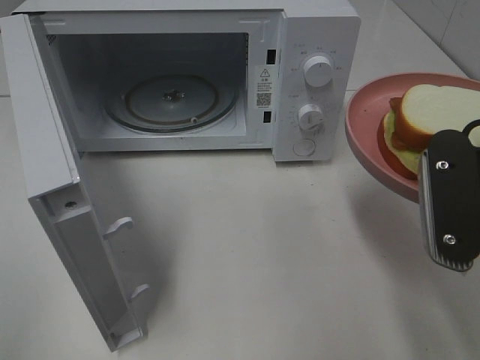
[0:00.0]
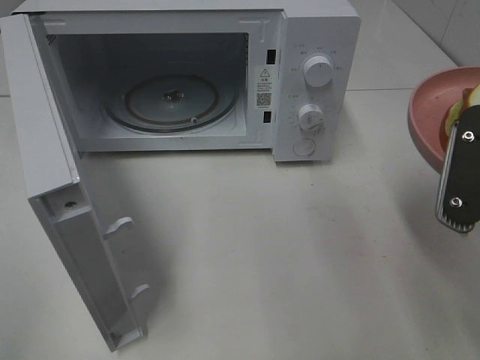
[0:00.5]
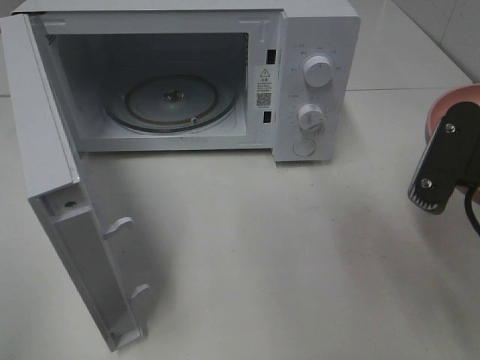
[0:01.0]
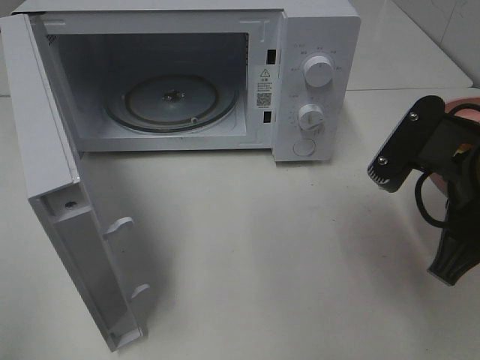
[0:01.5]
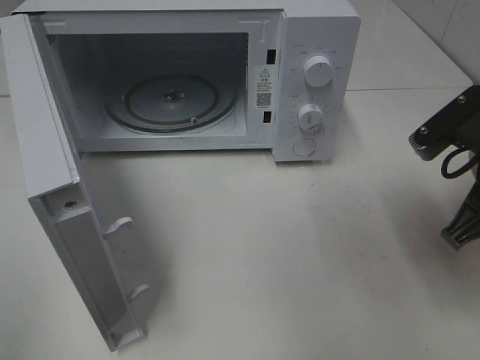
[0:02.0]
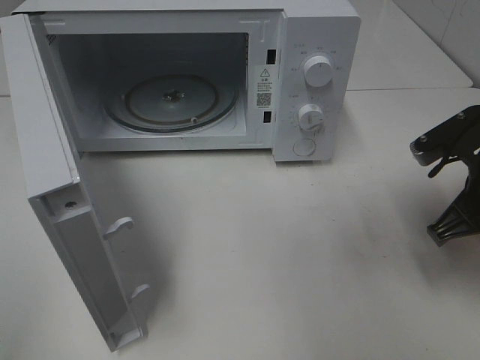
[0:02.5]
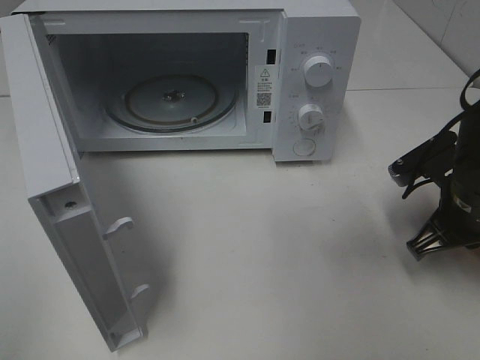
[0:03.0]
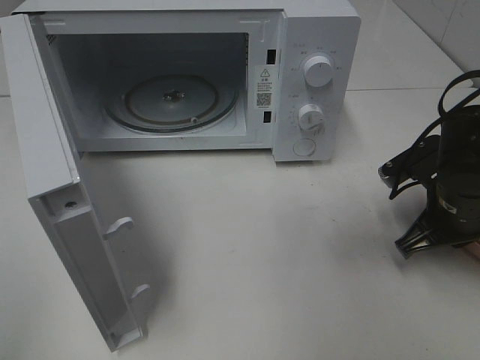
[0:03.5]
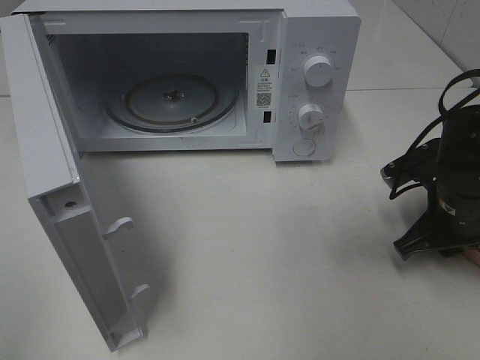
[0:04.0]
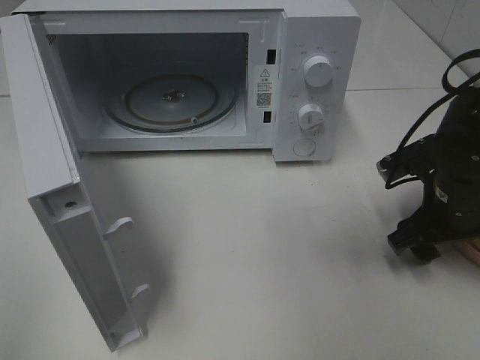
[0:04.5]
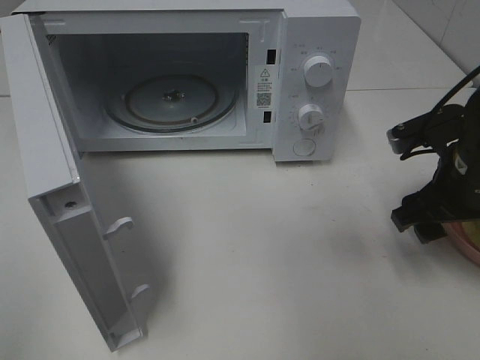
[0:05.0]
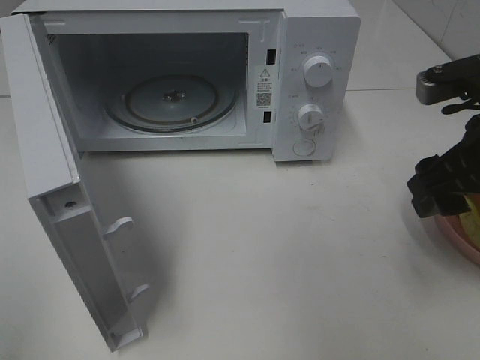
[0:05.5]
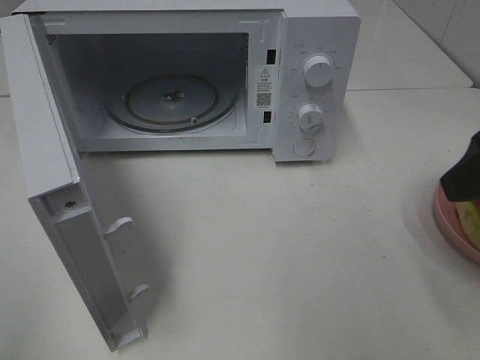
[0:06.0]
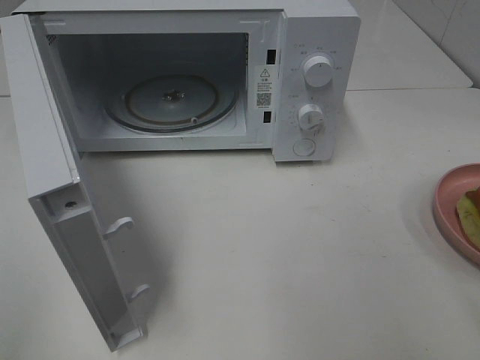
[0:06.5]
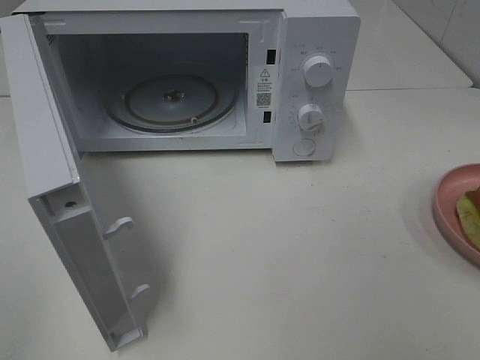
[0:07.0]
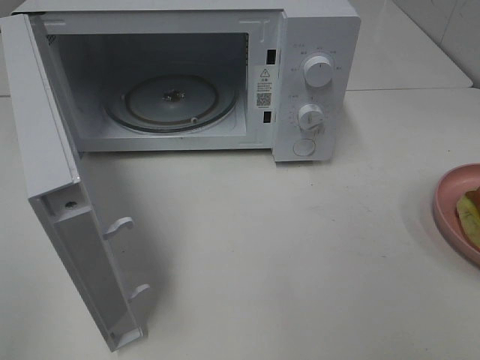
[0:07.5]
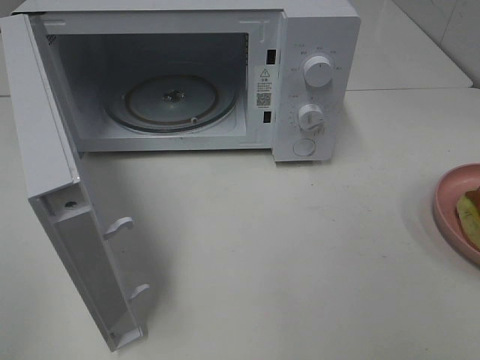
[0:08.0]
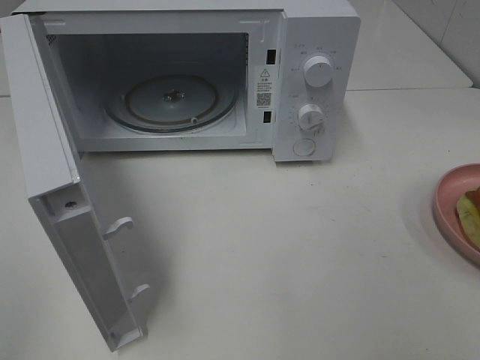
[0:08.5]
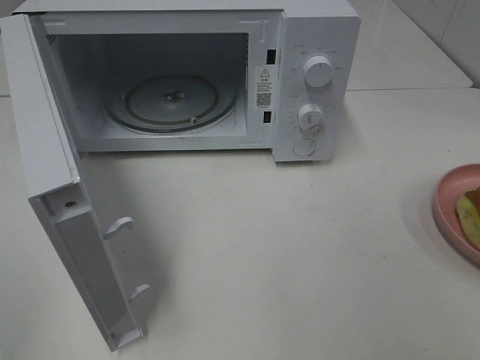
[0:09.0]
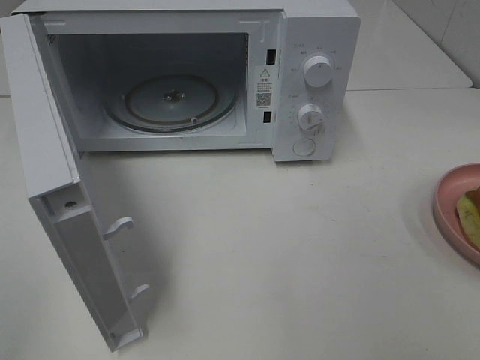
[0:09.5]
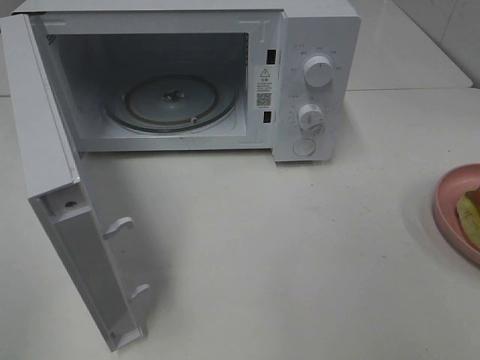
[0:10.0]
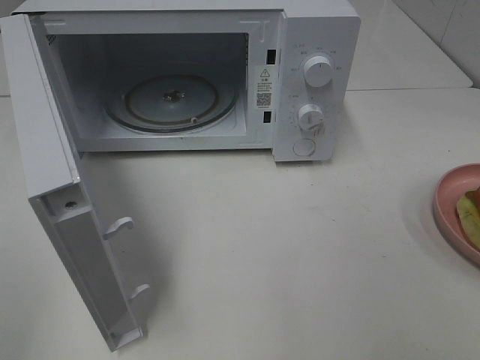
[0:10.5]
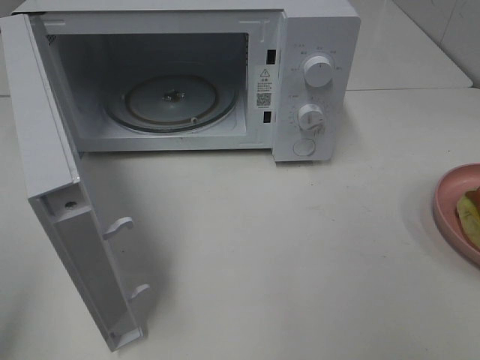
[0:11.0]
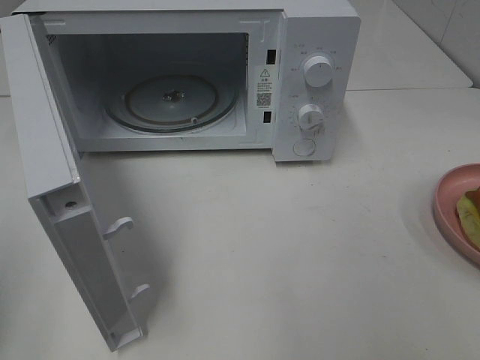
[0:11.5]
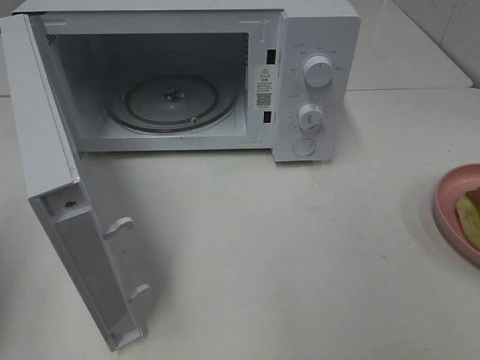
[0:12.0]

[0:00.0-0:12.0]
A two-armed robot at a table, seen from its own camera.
Task of the whole recording: Heat Sandwich.
Step, 0:00.0 to 0:05.0: Right hand: place the plate on the table.
0:00.0 to 0:02.0: The right gripper moves forward, about 5 cm.
0:02.0 to 0:04.0: The right gripper is displaced downward by roughly 10 cm, and opens.
0:04.0 to 0:06.0: The right gripper moves upward and backward, about 20 cm, and opens up.
0:06.0 to 0:08.0: The right gripper shifts approximately 15 cm backward.
0:08.0 to 0:10.0: The two grippers keep their place.

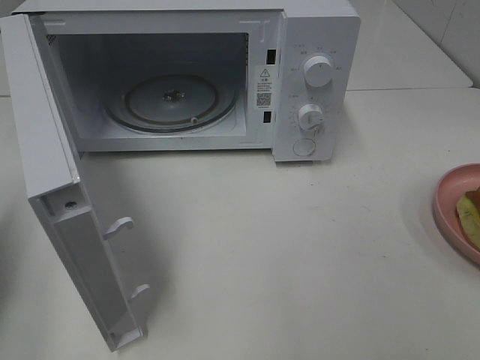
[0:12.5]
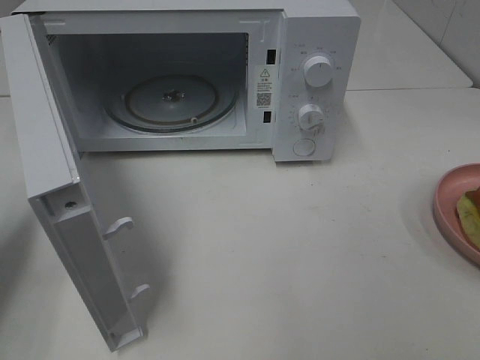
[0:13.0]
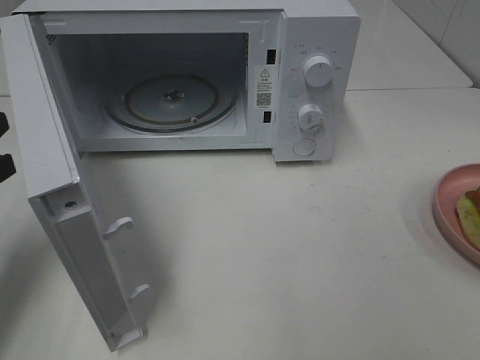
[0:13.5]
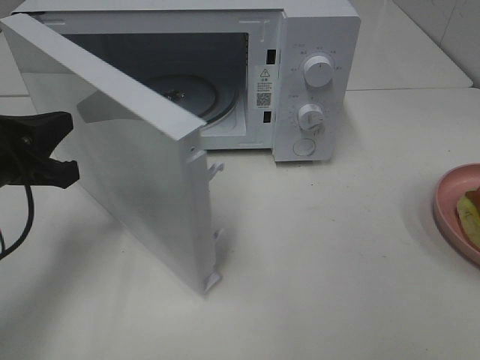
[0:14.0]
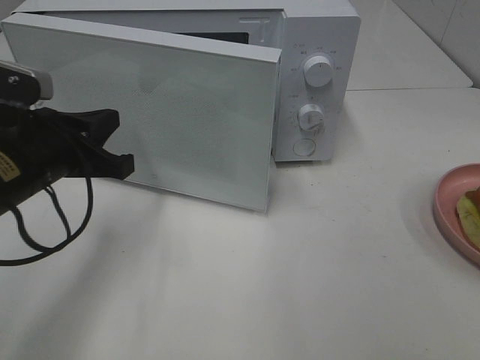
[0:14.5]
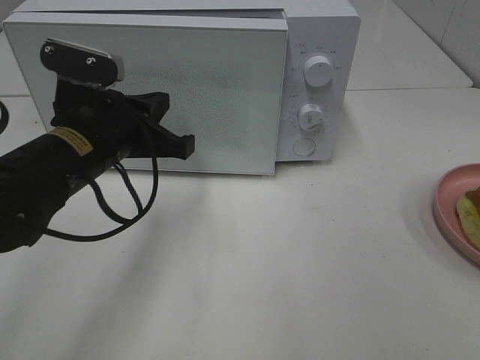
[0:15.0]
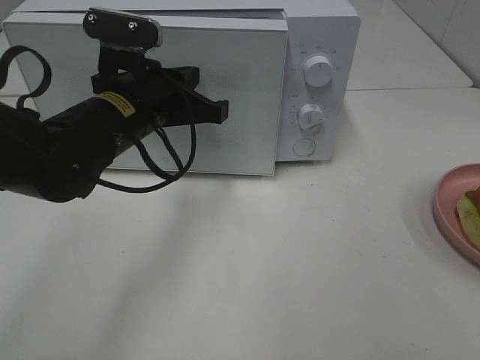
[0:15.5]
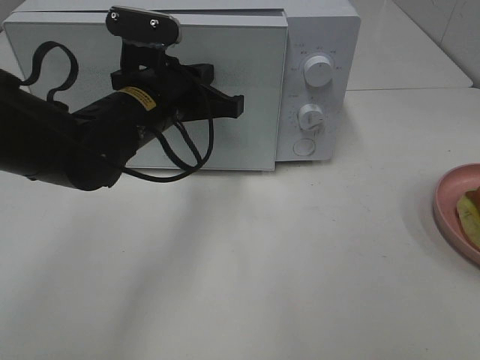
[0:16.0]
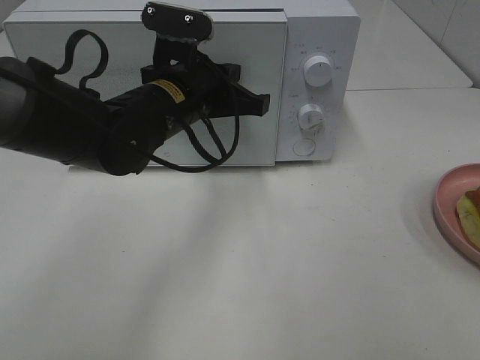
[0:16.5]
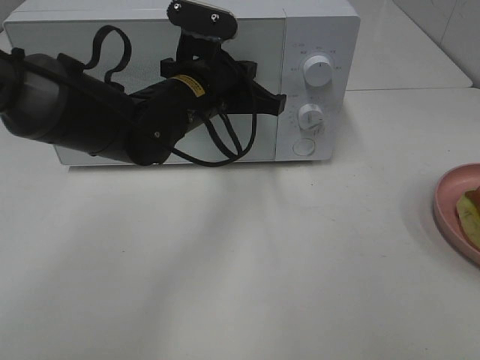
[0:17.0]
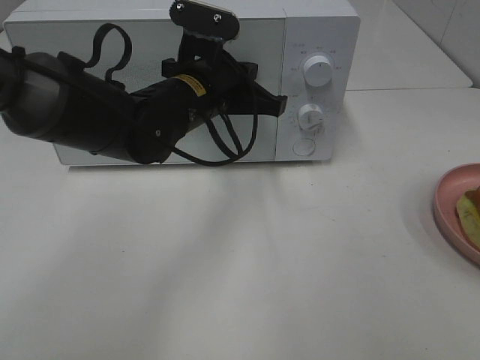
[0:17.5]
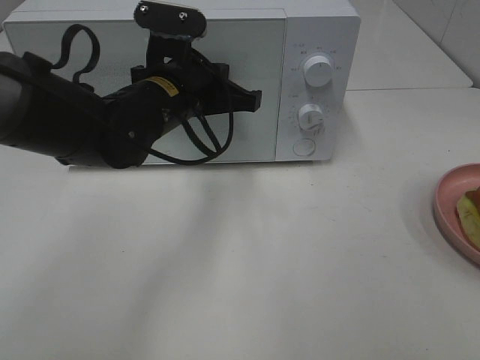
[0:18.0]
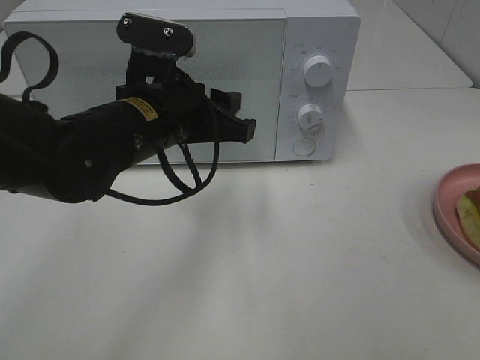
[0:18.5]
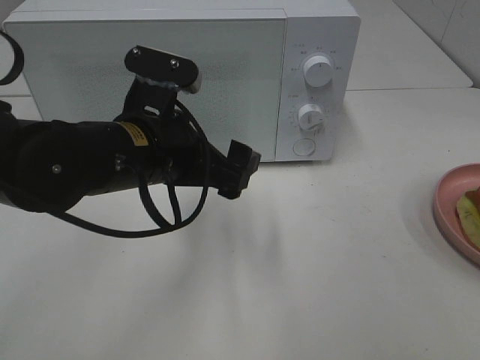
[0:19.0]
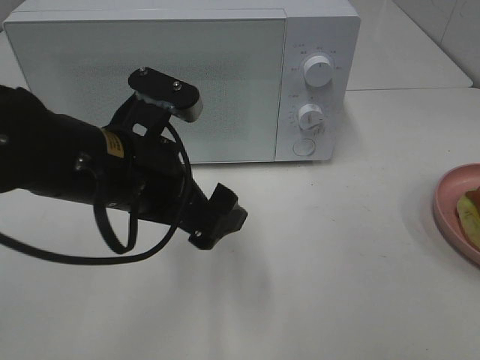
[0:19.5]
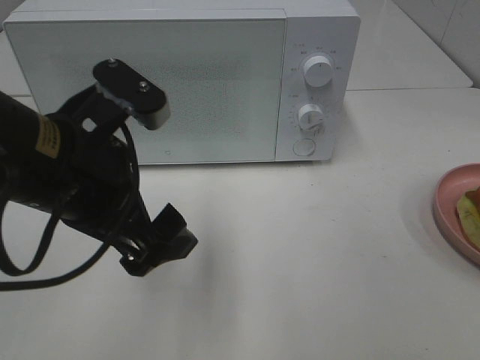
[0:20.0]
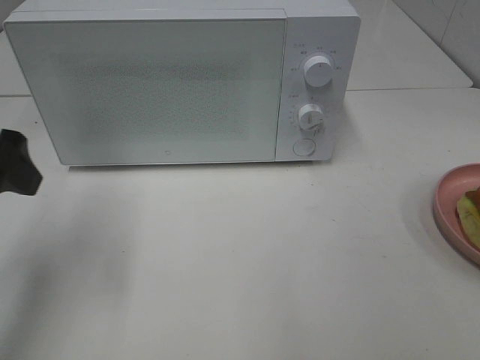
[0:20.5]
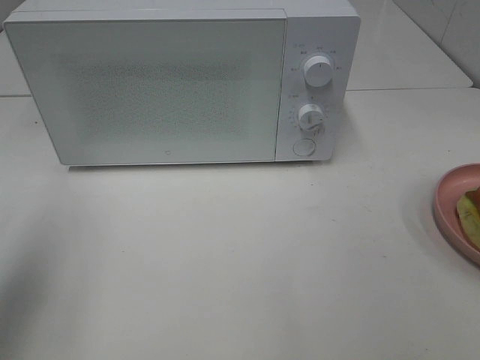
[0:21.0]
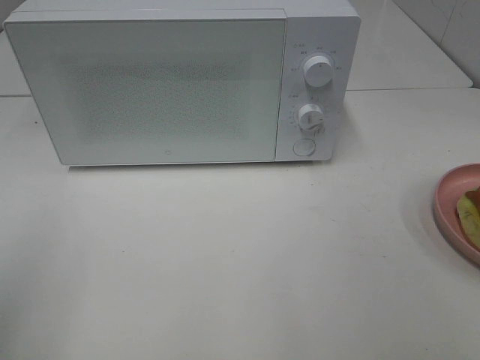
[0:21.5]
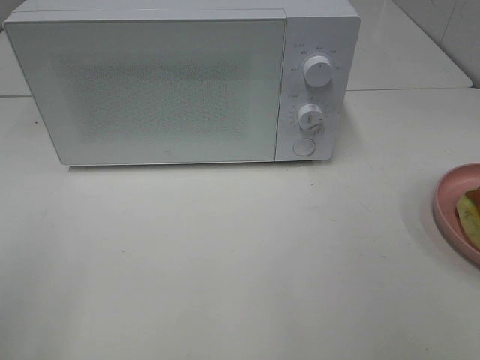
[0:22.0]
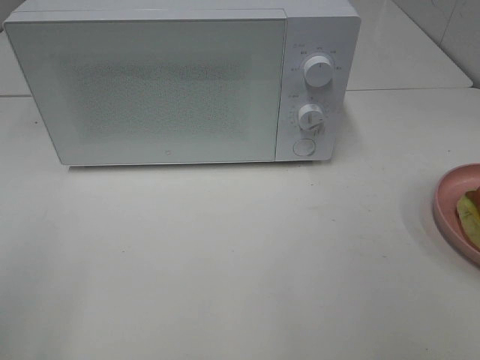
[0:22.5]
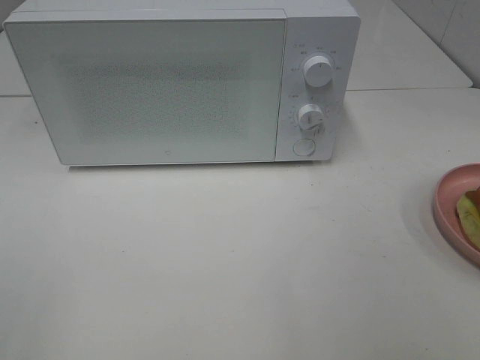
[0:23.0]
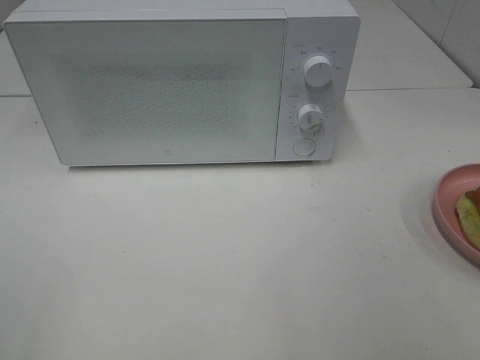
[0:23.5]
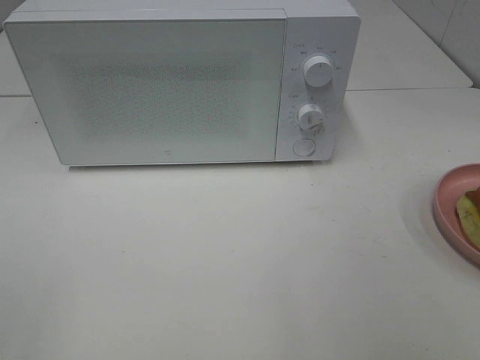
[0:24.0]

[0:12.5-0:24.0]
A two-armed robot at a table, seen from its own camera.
Task of the whole recording: Heat Sandwich.
Step, 0:12.5 to 0:18.0: Left hand: close the microwave door.
0:12.5 to 0:14.5: The left gripper travels to the right, forward and downward by about 20 cm.
0:14.5 to 0:16.5: The left gripper shifts about 15 cm to the right and forward.
0:16.5 to 0:18.5: The left gripper travels backward by roughly 5 cm, and opens up.
0:18.5 to 0:20.0: The left gripper travels backward and to the left by roughly 10 cm, and opens.
0:20.0 to 0:22.0: The left gripper heads to the left and backward, covering about 25 cm.

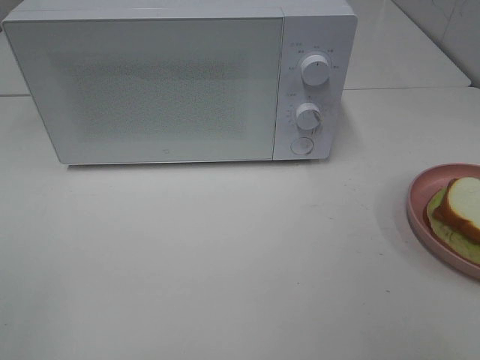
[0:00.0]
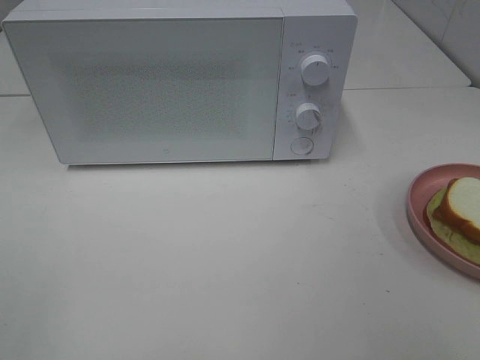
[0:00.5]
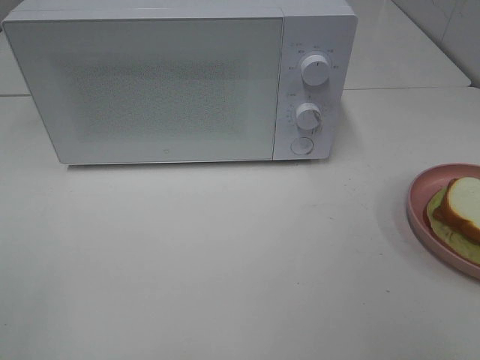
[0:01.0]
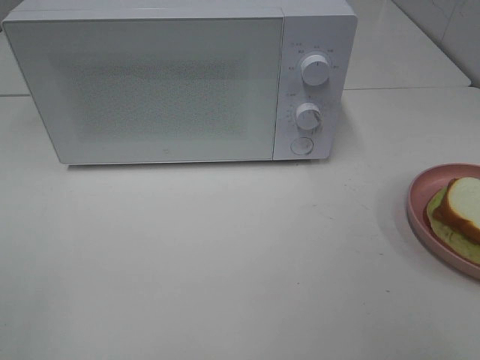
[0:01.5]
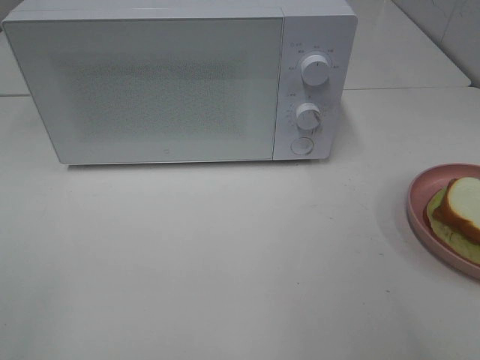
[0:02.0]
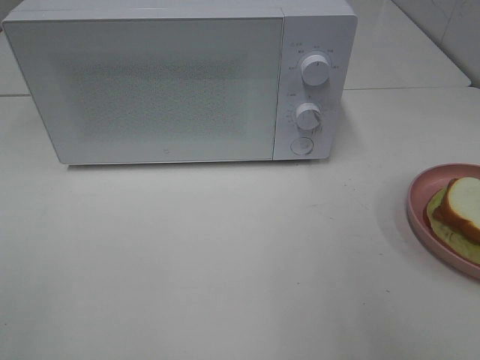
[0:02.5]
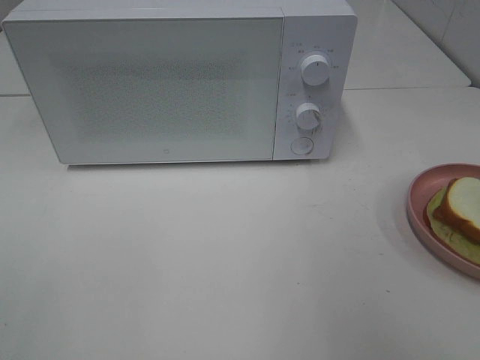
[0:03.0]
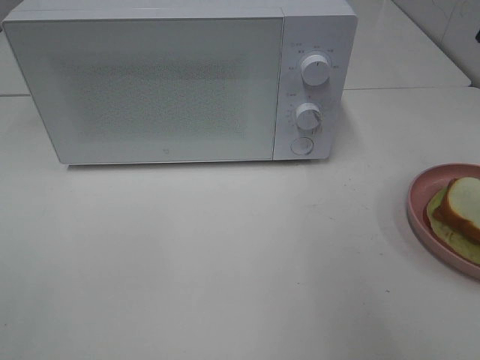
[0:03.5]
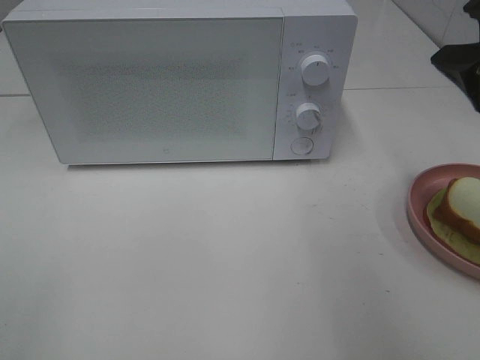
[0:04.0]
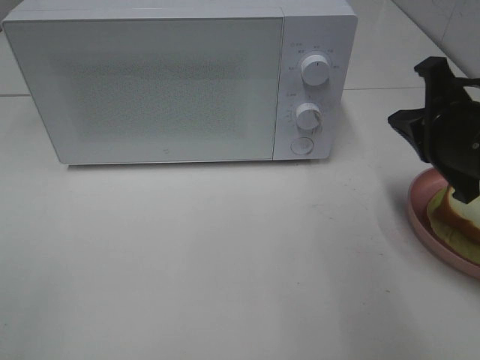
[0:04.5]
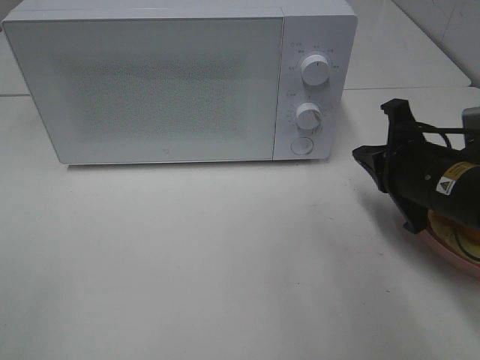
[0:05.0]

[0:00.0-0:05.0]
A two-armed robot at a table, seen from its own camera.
Task of the whole recording: Heat Sandwich.
0:02.5 to 0:05.0: The right gripper heads downward and forward, covering approximately 25 cm, and closes its fingers.
